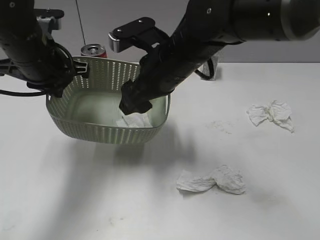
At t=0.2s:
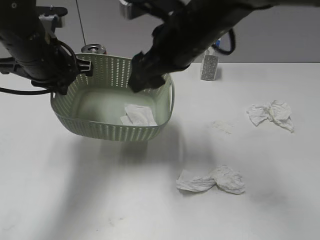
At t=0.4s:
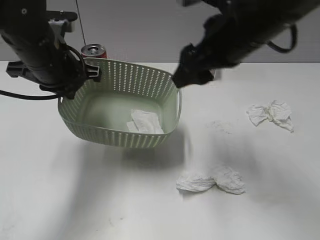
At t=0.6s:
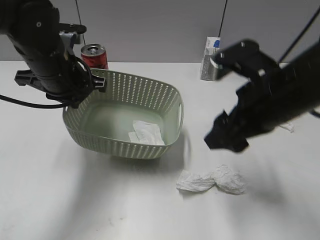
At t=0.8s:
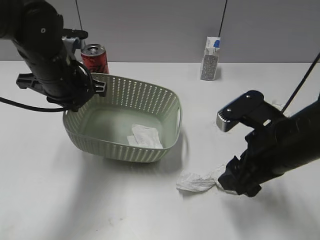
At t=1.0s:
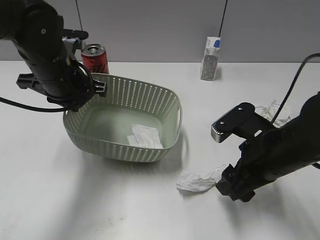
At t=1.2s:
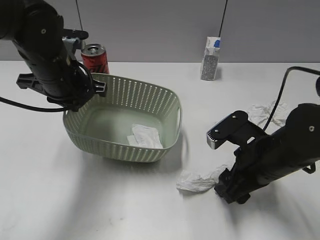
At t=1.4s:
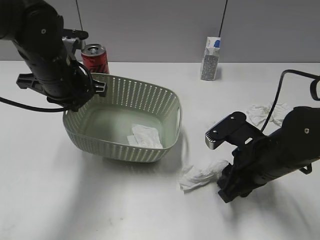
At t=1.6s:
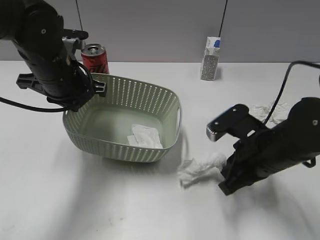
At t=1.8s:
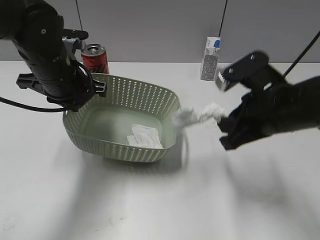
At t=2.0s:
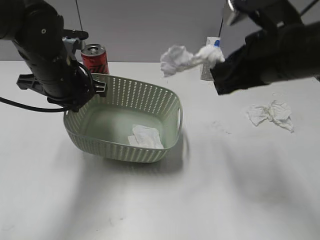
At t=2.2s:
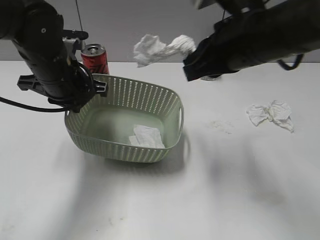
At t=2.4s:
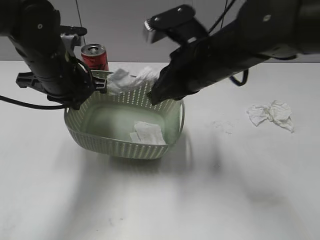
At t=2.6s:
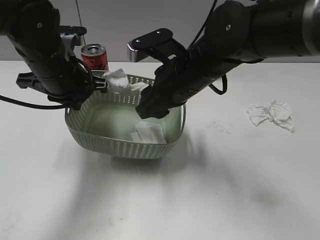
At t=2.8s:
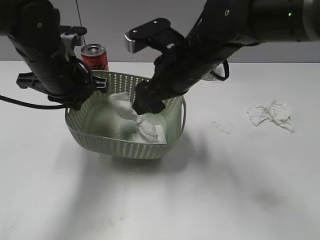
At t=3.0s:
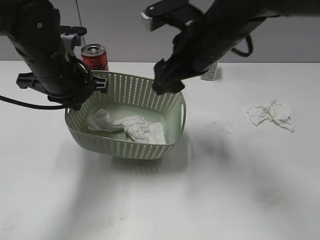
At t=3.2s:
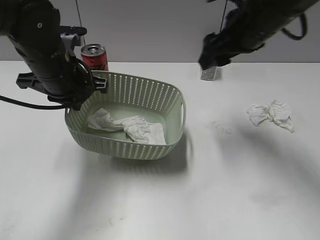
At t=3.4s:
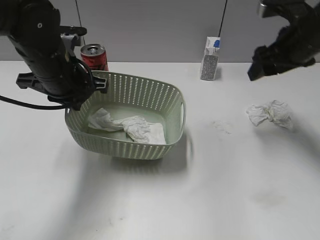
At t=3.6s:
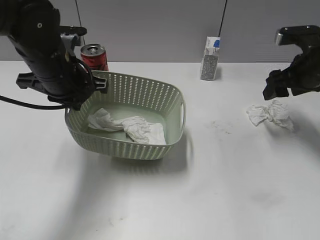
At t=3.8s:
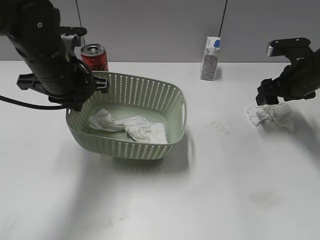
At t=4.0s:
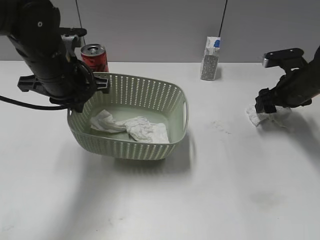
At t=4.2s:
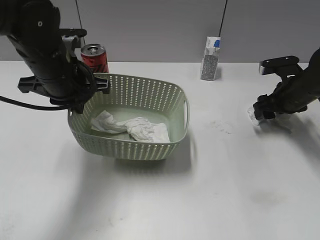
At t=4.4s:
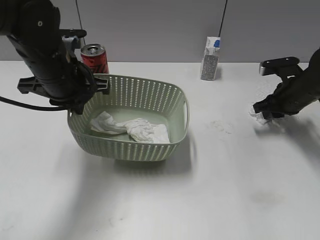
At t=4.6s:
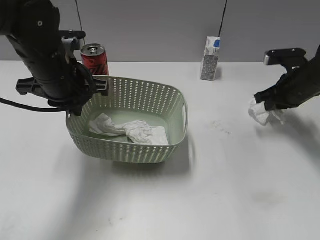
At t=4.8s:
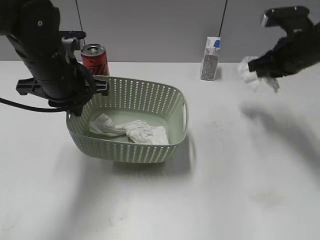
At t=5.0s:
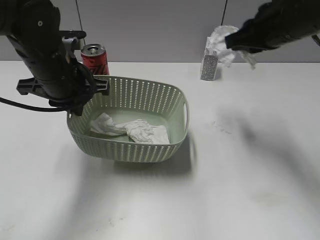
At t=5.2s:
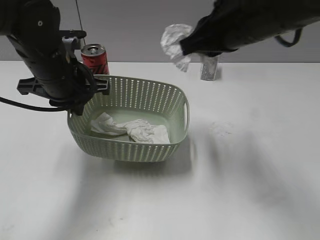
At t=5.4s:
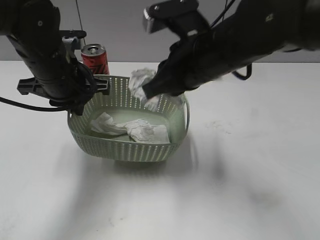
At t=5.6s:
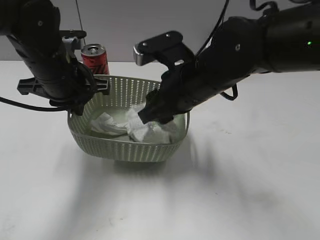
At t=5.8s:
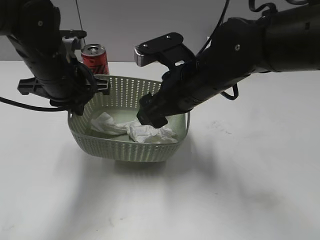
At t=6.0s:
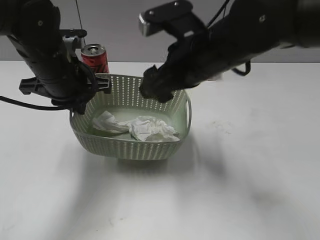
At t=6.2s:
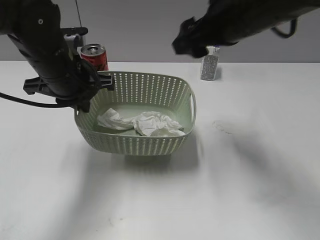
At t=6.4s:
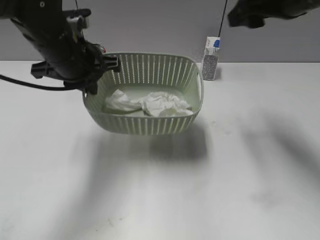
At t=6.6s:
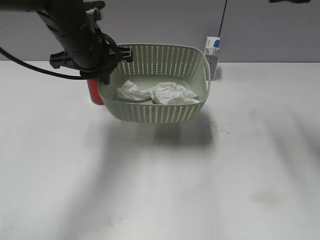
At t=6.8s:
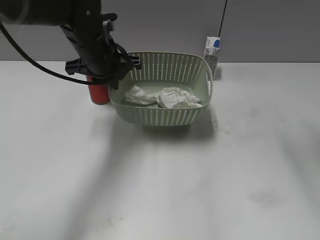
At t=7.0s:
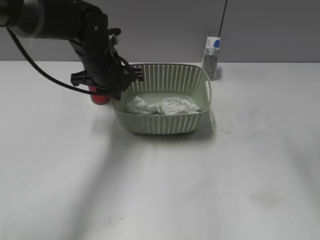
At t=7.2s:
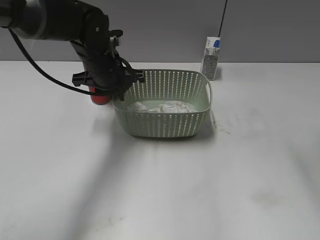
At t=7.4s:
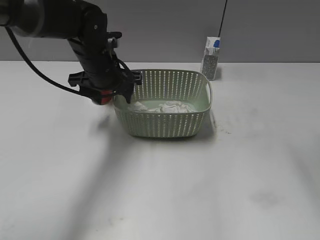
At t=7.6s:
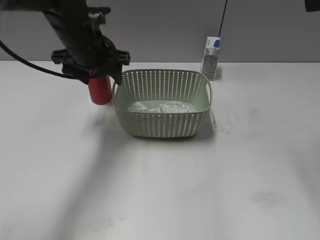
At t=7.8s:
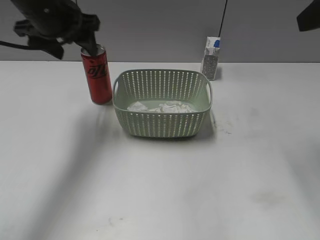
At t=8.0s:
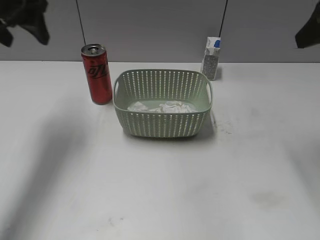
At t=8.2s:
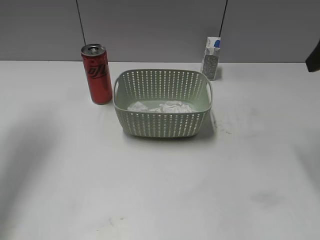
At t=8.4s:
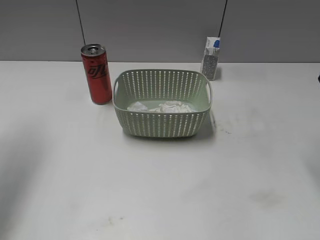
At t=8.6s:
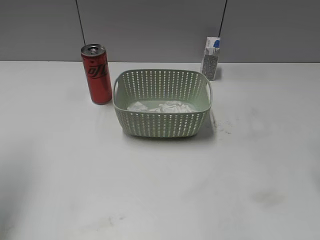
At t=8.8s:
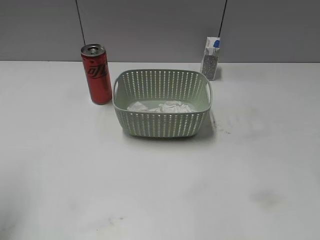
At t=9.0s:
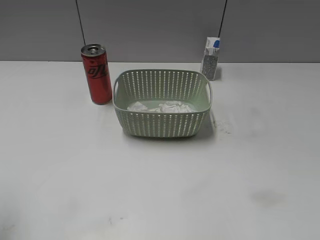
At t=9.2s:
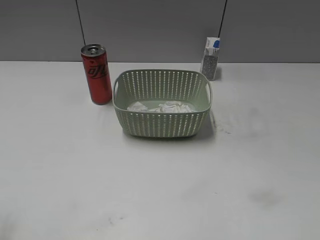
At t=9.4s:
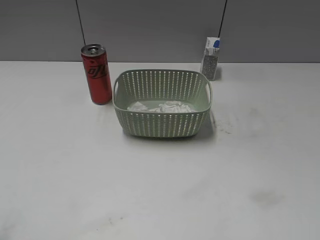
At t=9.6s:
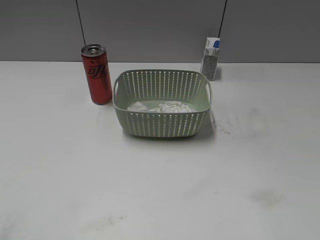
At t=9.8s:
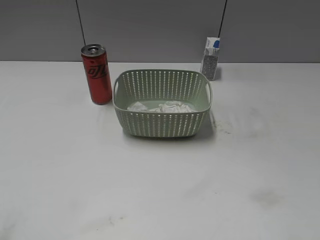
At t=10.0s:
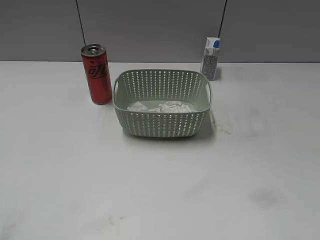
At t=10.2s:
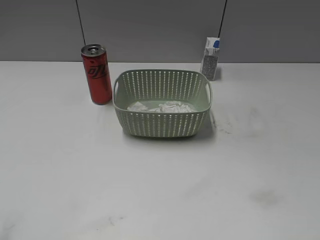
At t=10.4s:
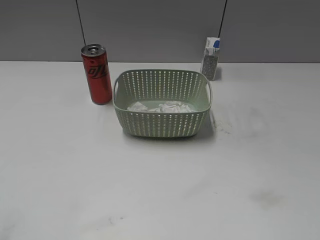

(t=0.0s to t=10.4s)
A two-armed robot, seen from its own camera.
Step, t=0.4s - t=1.6s: Grasp the waste paper with right gripper.
Step, t=1.8s - t=3.0s: Place the waste paper in the basket with right gripper.
Step, t=3.2s - t=4.6s: Grasp the waste paper with right gripper.
Step, t=4.8s - t=6.0s: Place the waste paper in the basket with right gripper.
Step, t=6.2s - t=7.6s: Place the basket on the table with left gripper.
t=0.0s - t=1.4s: The right gripper is displaced to the right, downward and backward by roughly 20 cm, and closes up.
t=1.4s - t=3.0s: The right gripper goes up and down, roughly 15 cm each way, reversing 2 times, and opens.
t=3.0s - t=4.4s: The right gripper moves to the right and downward, roughly 25 cm, and closes.
t=4.4s - t=6.0s: The right gripper moves to the left, upward and backward, about 30 cm, and opens up.
t=6.0s - t=7.4s: The right gripper shifts some 25 cm to the right and upward. The left gripper goes about 5 cm forward, and opens up.
t=7.4s - t=9.0s: The left gripper shifts some 35 cm backward, to the left and upward. Meanwhile the right gripper heads backward, covering approximately 5 cm.

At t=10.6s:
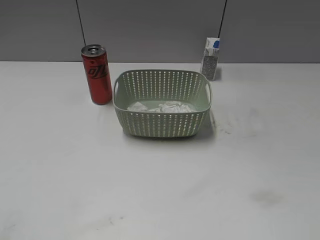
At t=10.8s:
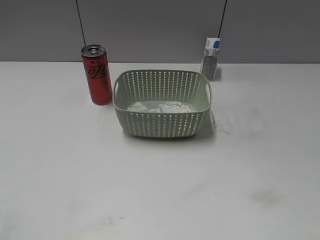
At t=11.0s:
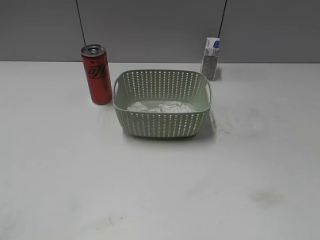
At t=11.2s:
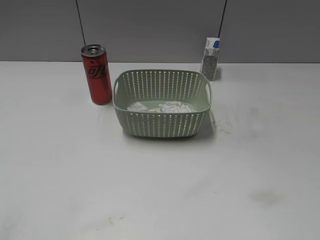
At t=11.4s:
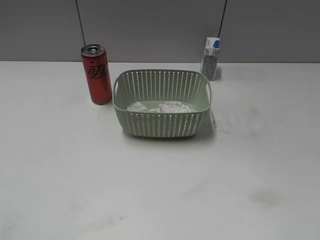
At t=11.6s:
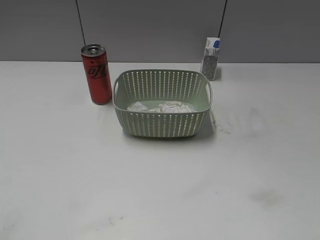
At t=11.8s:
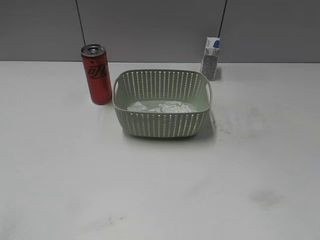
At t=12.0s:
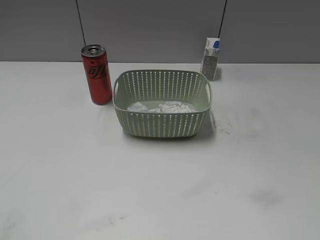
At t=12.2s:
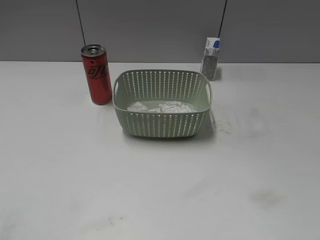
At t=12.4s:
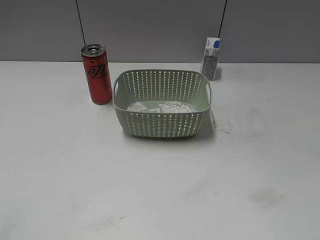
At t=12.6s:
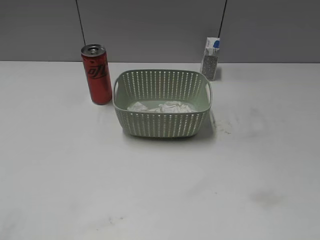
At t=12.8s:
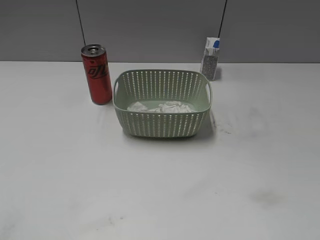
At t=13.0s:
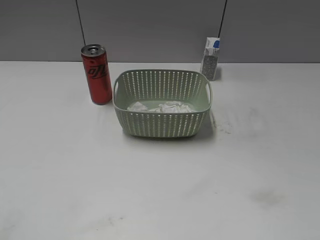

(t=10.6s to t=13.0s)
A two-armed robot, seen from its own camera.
t=11.8s - t=13.0s: Neither gripper changes place.
